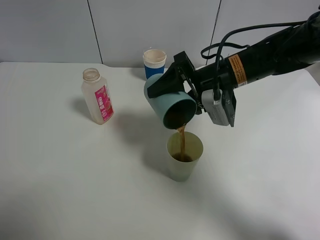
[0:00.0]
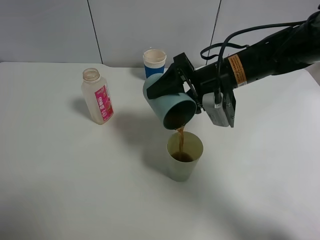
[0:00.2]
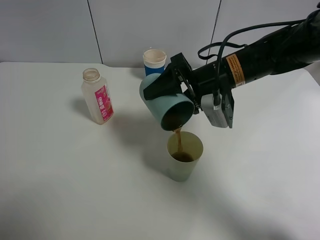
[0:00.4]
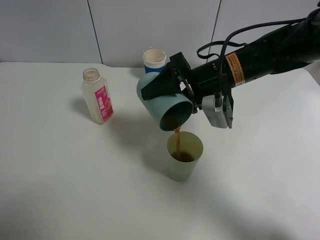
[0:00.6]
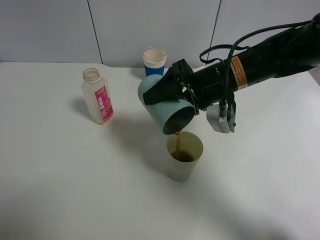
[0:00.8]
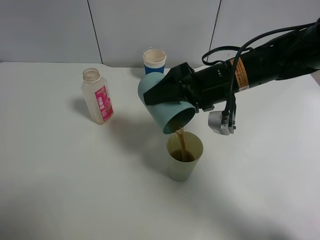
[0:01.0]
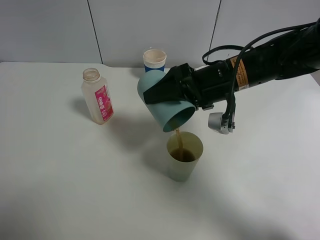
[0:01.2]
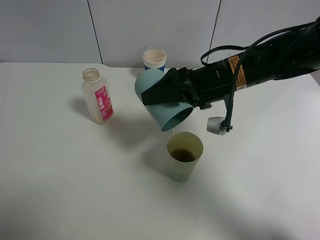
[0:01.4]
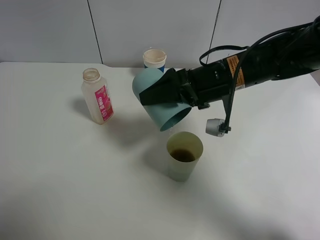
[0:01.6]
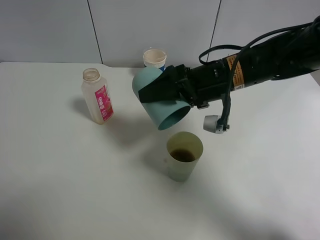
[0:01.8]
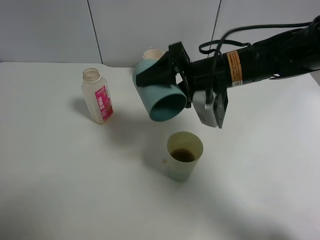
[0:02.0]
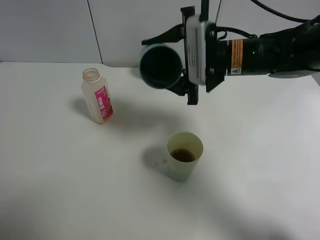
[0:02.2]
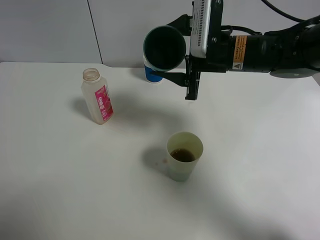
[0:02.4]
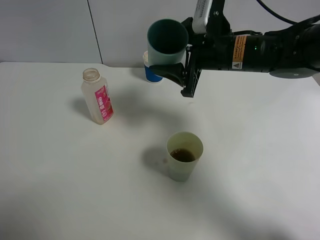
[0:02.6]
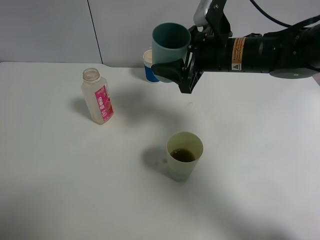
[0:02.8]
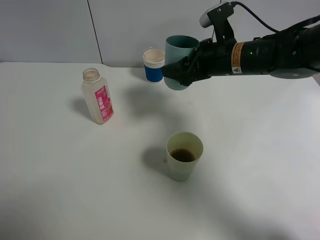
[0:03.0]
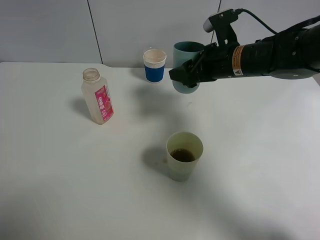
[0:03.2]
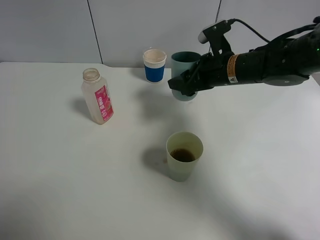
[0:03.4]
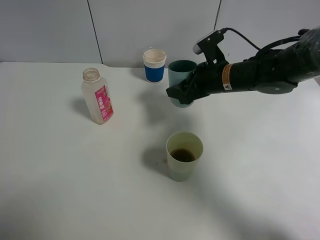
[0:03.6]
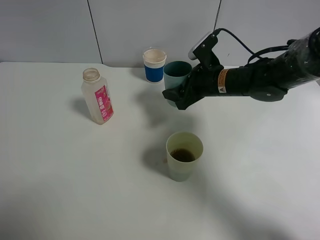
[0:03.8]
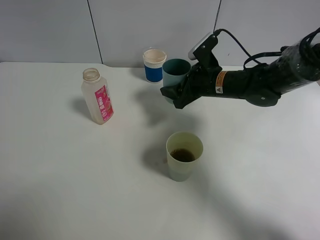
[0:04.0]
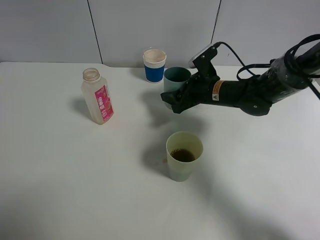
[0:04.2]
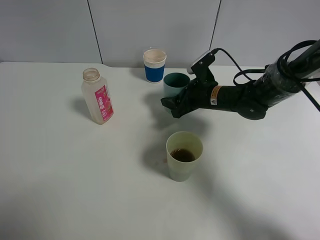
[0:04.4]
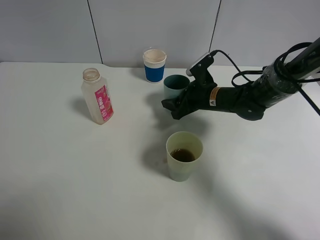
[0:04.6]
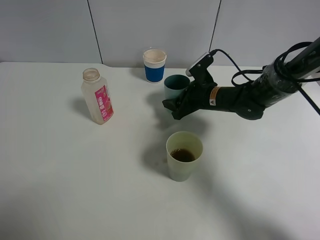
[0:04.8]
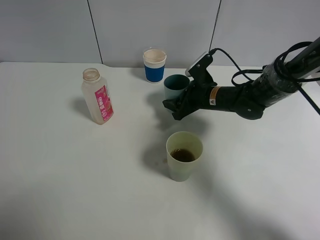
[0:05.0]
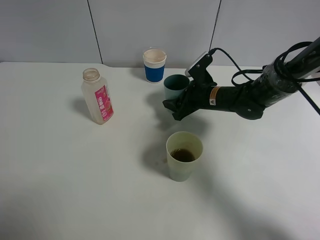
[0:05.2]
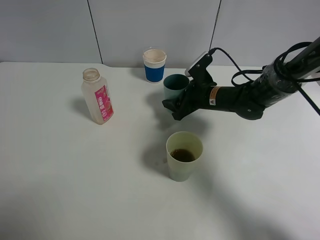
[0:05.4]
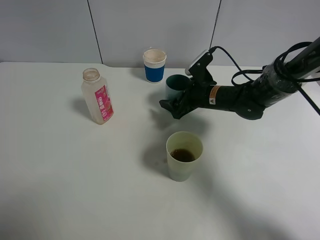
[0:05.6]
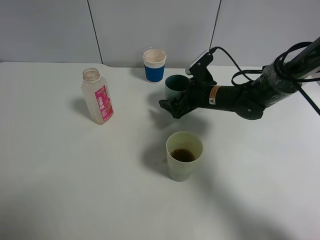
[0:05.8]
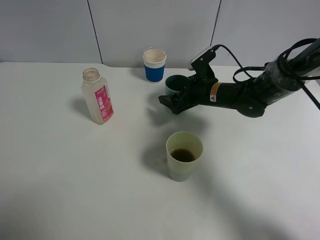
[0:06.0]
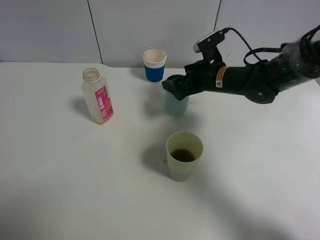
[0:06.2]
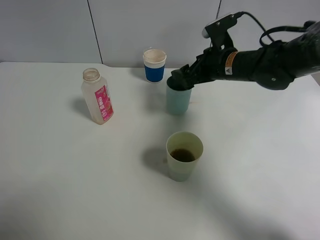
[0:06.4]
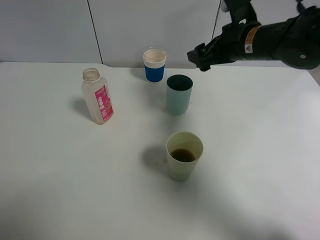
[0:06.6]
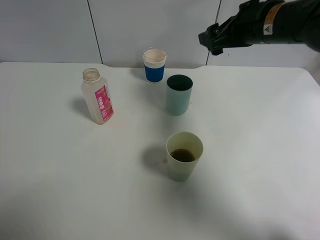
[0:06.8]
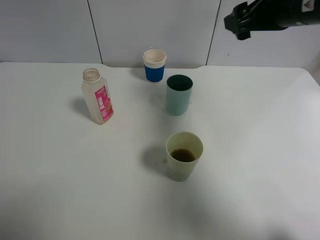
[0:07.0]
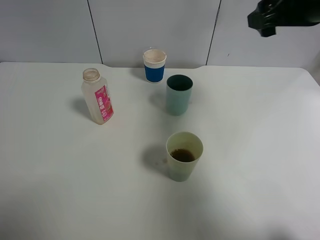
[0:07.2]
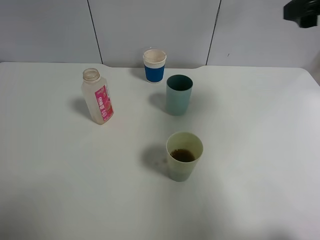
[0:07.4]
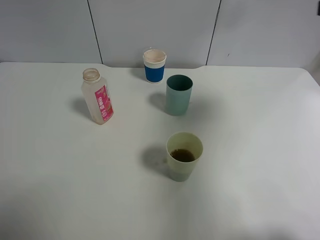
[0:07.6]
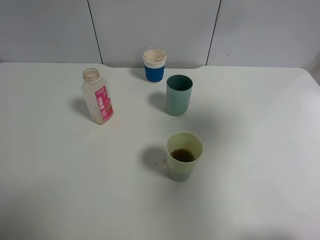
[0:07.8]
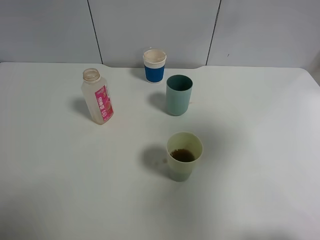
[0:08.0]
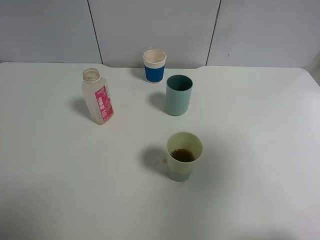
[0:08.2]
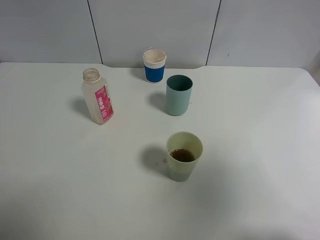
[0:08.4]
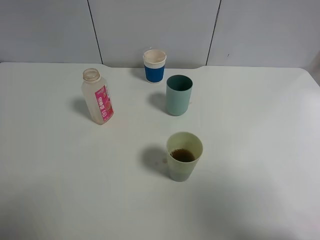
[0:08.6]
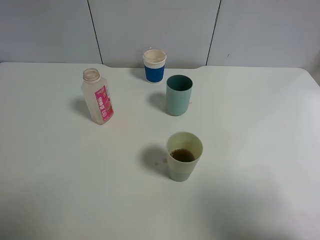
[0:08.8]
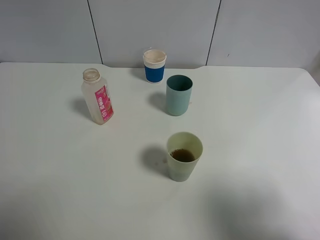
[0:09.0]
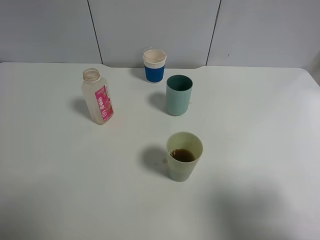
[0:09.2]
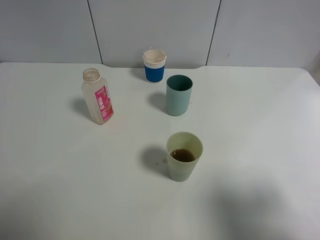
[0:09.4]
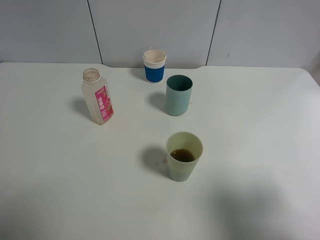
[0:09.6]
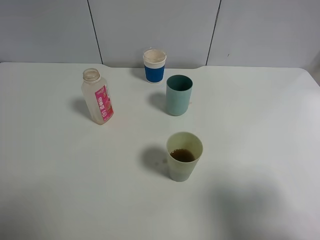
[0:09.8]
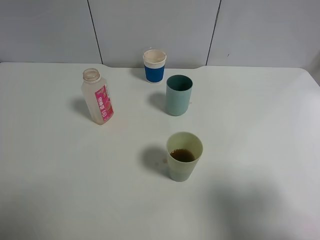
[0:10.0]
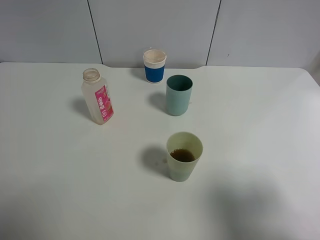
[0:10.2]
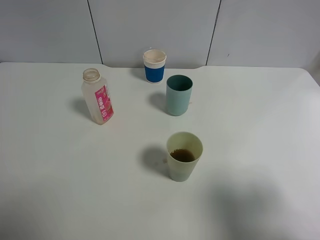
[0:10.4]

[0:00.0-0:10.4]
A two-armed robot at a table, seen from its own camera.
Task of the whole recording: use a clamp to hold the bottle of the drink, pour the beverage into a random cup, then clamp the cup containing the drink and pour the drink into another random cup.
Step, 0:02.0 to 0:06.0: Place the blue plastic cup on the table with right gripper.
0:01.4 to 0:03.0: The right gripper goes approximately 5 cm forward.
0:03.0 to 0:04.4: The right gripper is displaced downward by roughly 10 cm.
0:04.4 to 0:06.0: The right gripper opens.
0:06.0 to 0:07.4: The right gripper heads upward, to the right and backward, covering some 30 cm.
0:07.4 to 0:09.0: The right gripper heads backward, covering about 25 cm.
